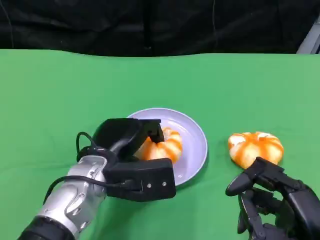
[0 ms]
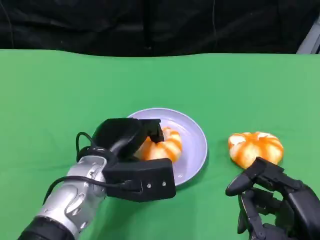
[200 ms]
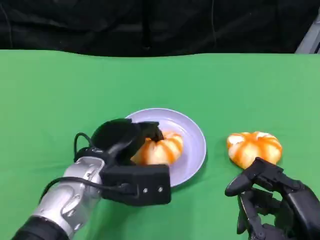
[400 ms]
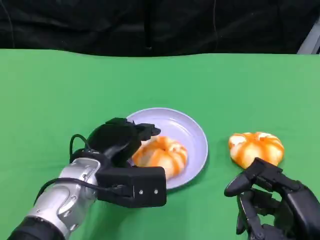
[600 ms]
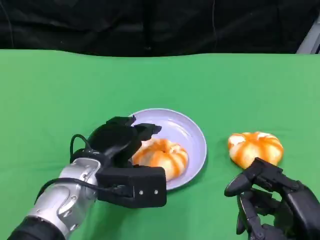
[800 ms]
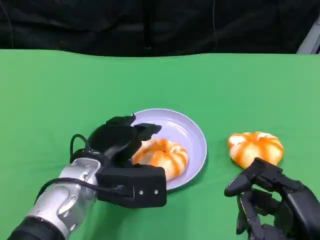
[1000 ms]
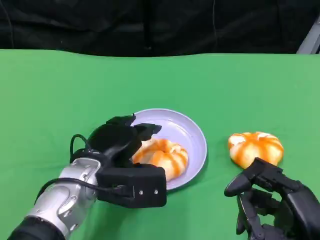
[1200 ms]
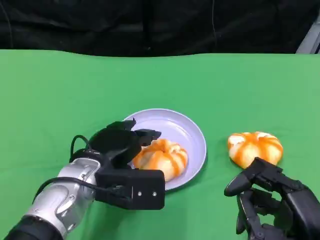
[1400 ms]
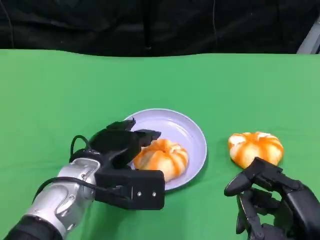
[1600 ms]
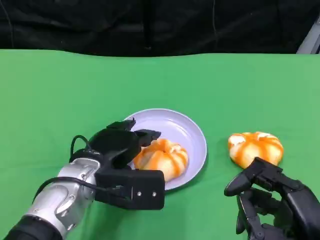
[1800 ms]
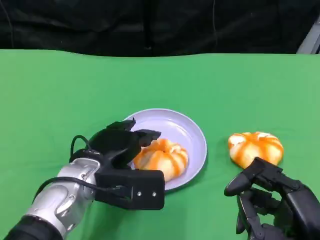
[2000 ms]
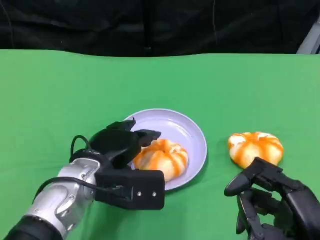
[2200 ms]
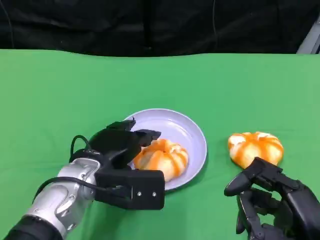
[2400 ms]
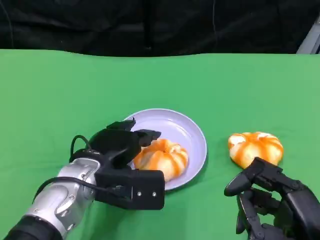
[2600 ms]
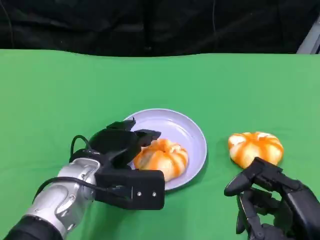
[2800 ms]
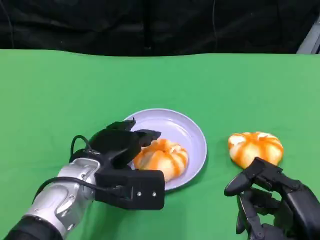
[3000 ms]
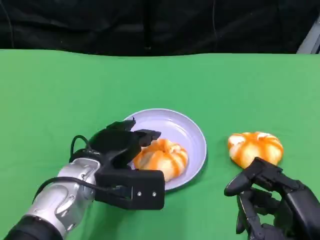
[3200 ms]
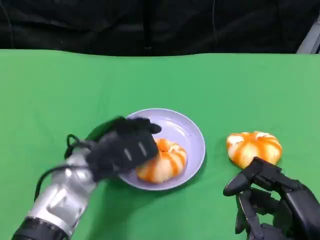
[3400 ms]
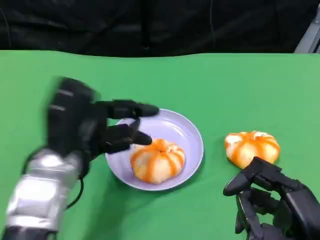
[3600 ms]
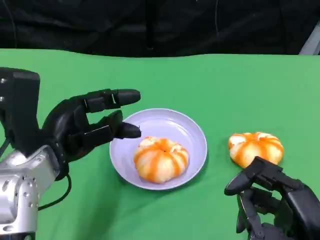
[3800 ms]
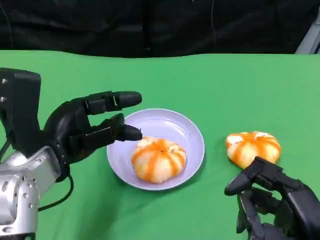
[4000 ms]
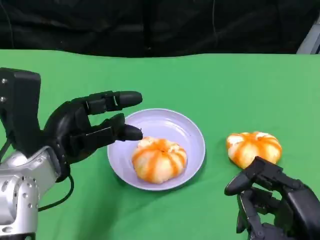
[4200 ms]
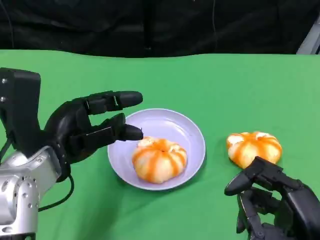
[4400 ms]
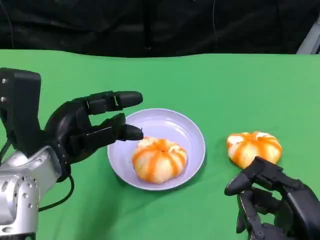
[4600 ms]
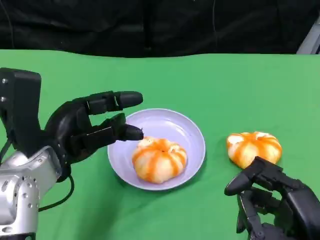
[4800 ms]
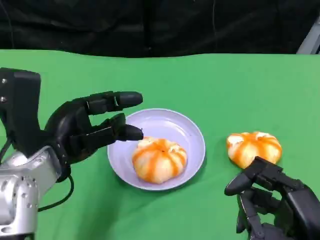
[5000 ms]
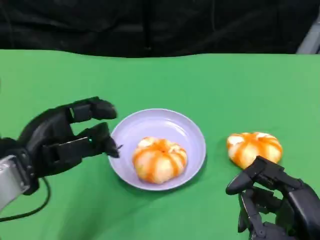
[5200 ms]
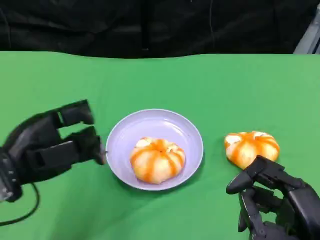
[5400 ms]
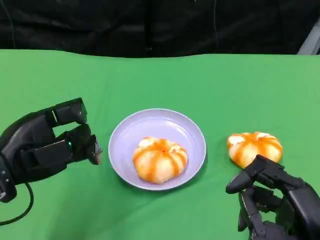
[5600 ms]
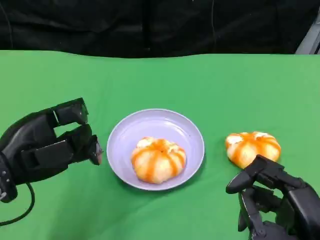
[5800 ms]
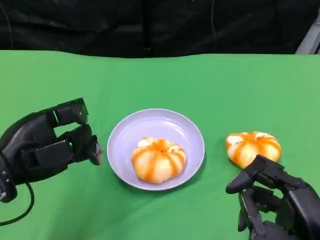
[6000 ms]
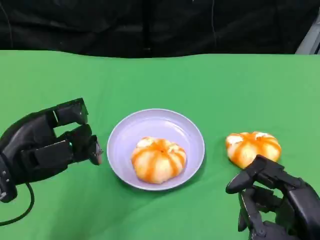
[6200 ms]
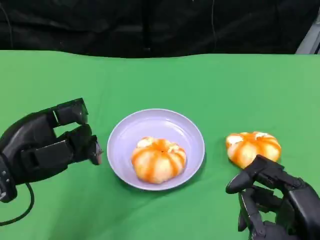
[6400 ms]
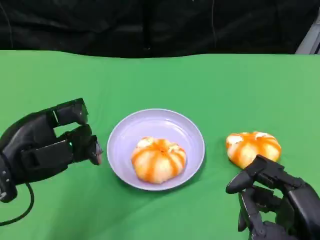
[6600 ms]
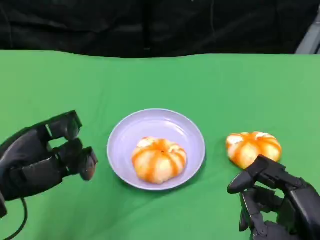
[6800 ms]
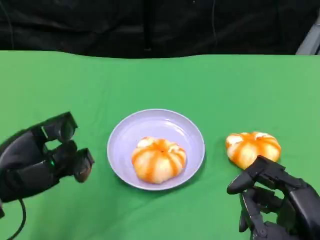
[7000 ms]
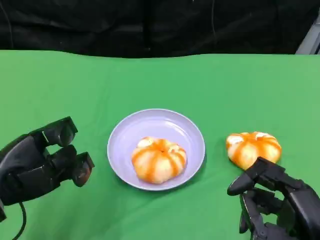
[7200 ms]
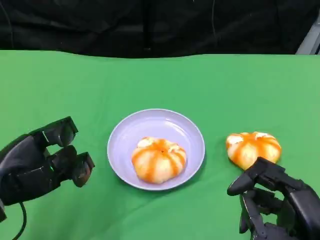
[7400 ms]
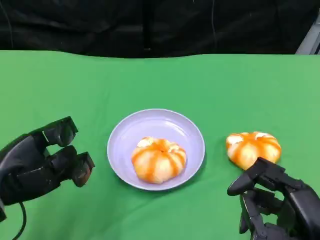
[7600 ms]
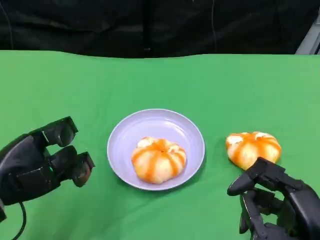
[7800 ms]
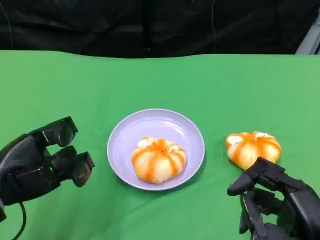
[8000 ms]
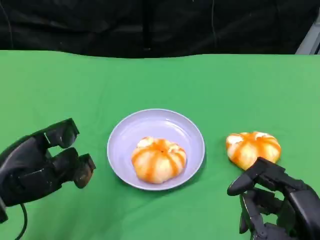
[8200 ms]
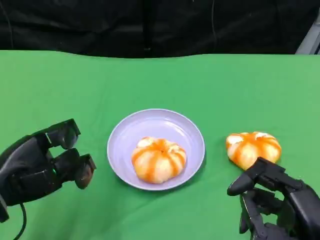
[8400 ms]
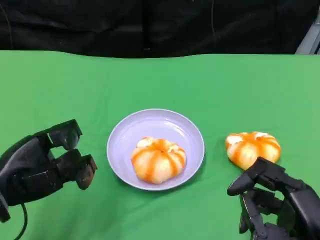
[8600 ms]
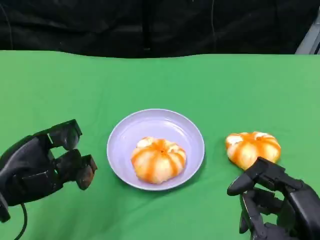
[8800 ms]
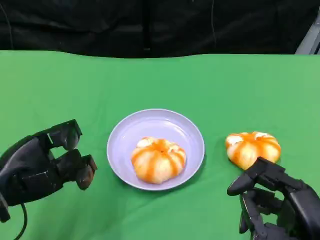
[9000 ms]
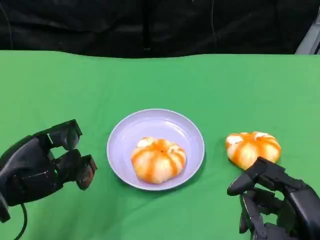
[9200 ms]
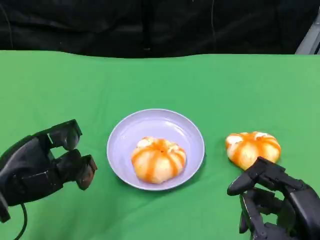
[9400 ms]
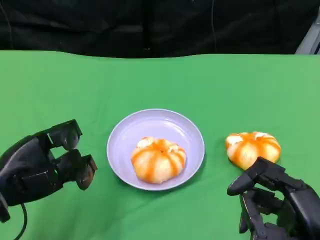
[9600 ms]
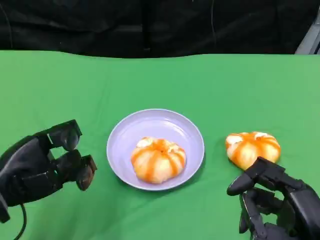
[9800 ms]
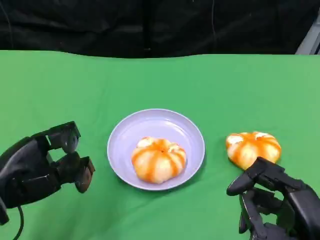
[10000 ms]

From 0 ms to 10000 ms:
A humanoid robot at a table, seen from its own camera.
Task of the whole recording: Grasp the bread from the table and place it into the plate.
From 0 ms to 1400 ms: The hands make only small movements.
From 1400 ms to 2800 ms: Both hands stay put.
From 2800 ms to 4200 ms: The left hand moves upward and to the left, approximately 10 cm.
From 4200 ms to 5800 ms: The left hand heads to the left, covering about 5 cm.
From 5800 ms to 7200 ms: The left hand ends up about 5 cm from where it was.
From 7200 ms to 8600 ms: Both hands stay about where they are.
From 8600 ms to 10000 ms: The two hands keep their place.

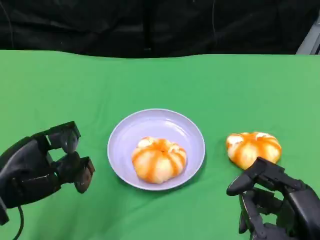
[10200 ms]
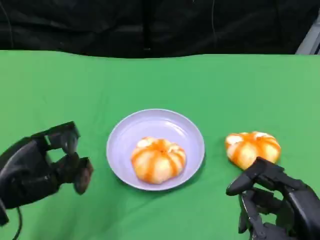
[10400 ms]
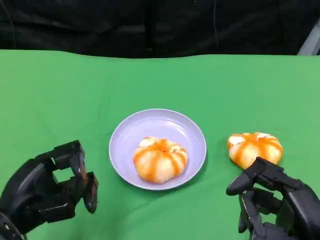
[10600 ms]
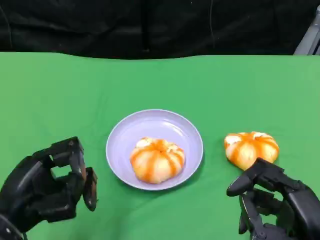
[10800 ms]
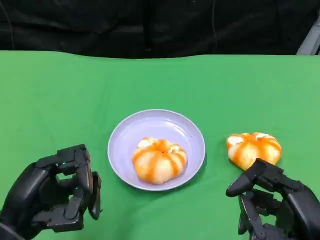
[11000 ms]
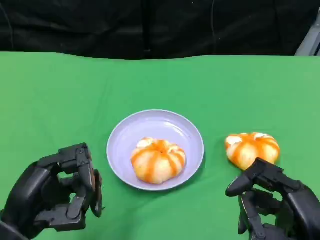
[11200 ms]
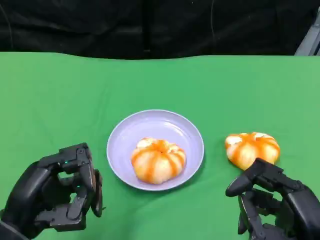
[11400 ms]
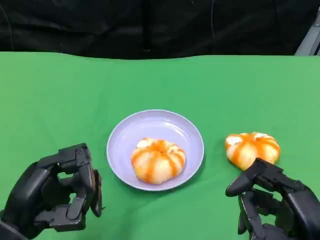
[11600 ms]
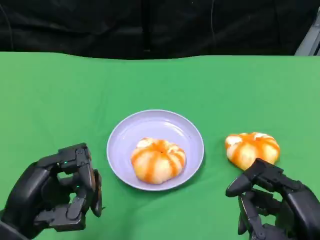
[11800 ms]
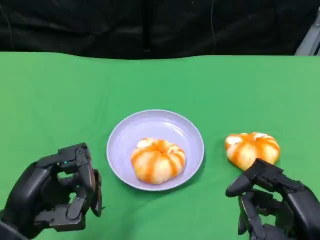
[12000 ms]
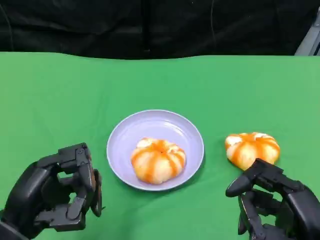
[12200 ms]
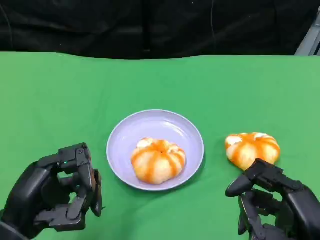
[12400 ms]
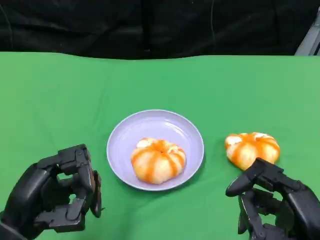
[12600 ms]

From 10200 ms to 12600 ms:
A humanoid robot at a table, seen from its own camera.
Task of the whole recording: Grasp the bread from the table and place it into the plate.
From 10200 ms to 11400 ms: The left hand moves backward, some 5 cm.
From 11400 ms to 12600 ms: Neither hand changes place.

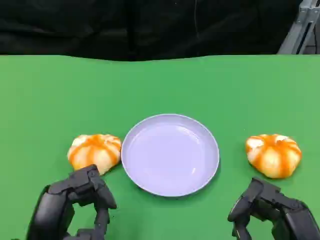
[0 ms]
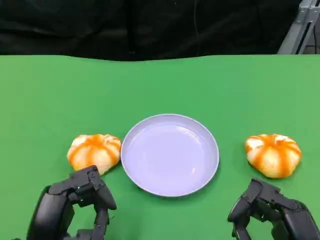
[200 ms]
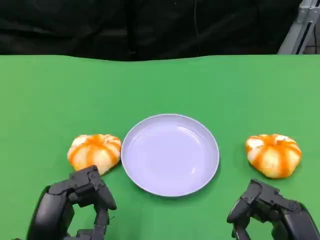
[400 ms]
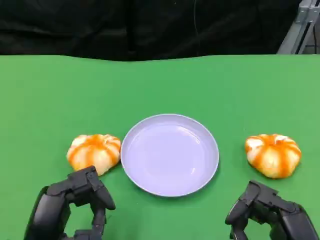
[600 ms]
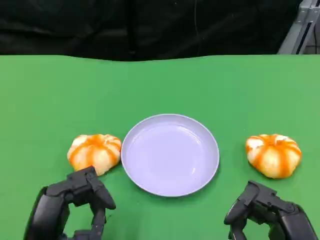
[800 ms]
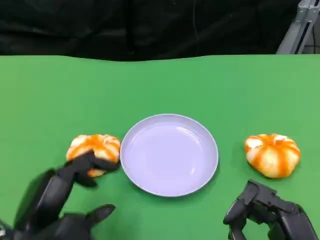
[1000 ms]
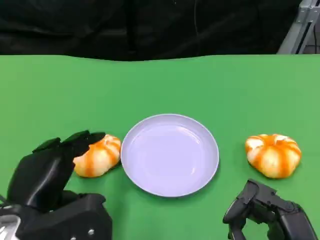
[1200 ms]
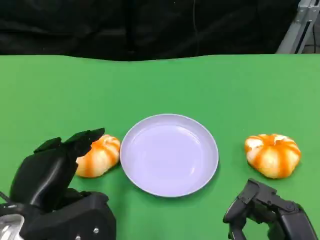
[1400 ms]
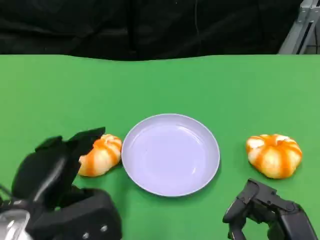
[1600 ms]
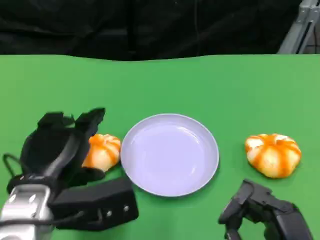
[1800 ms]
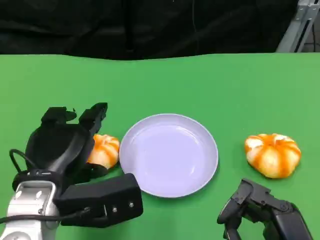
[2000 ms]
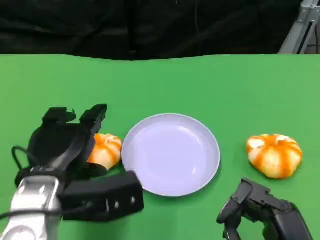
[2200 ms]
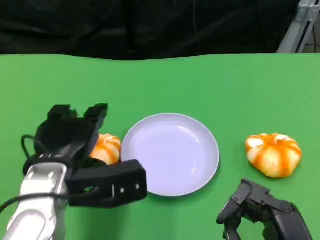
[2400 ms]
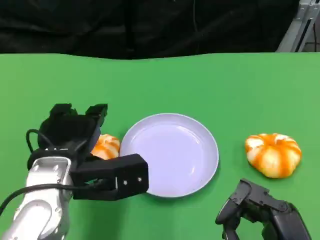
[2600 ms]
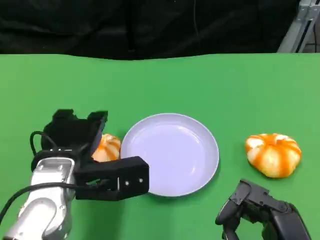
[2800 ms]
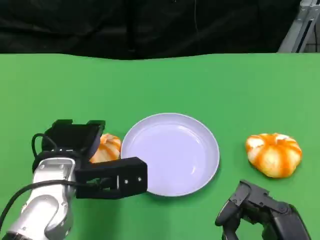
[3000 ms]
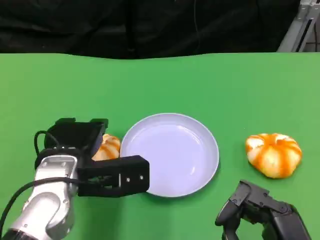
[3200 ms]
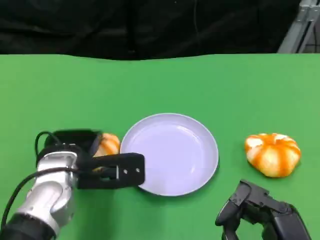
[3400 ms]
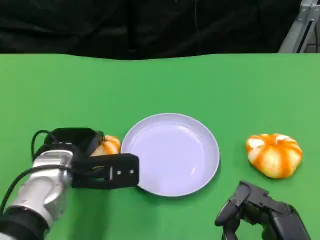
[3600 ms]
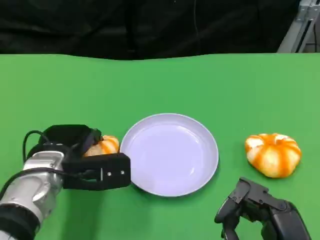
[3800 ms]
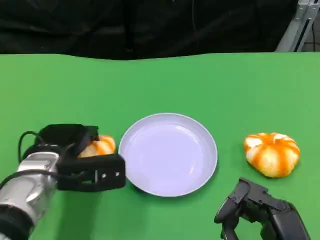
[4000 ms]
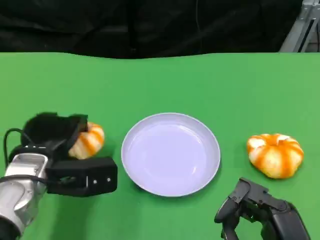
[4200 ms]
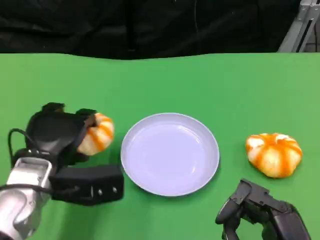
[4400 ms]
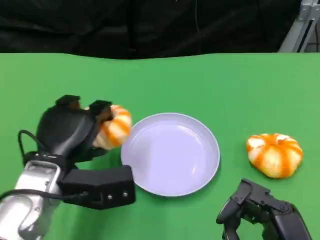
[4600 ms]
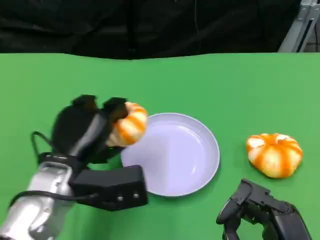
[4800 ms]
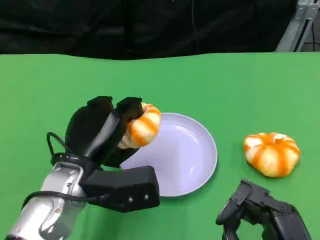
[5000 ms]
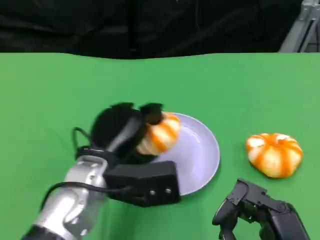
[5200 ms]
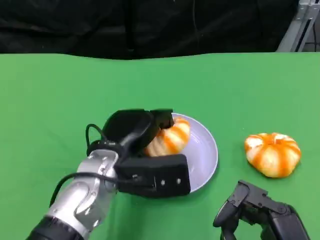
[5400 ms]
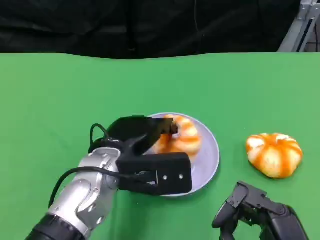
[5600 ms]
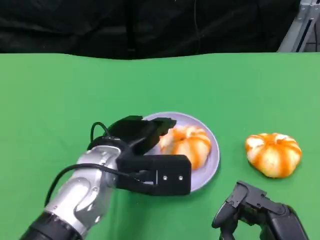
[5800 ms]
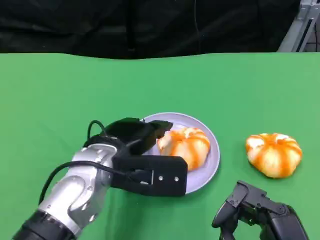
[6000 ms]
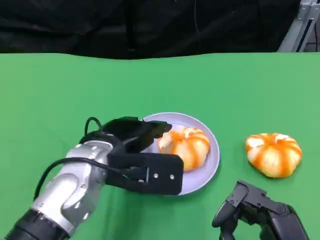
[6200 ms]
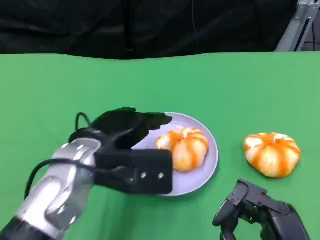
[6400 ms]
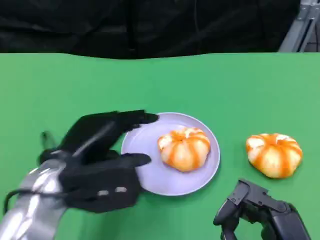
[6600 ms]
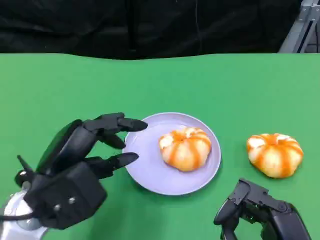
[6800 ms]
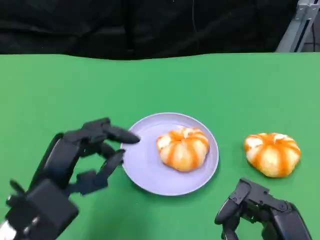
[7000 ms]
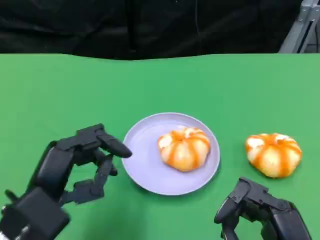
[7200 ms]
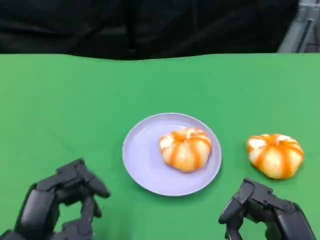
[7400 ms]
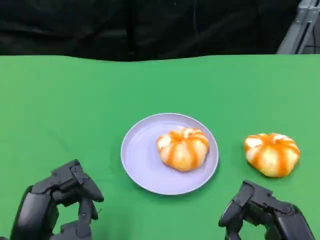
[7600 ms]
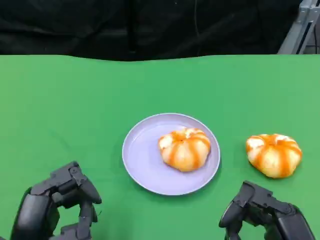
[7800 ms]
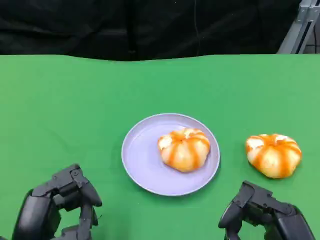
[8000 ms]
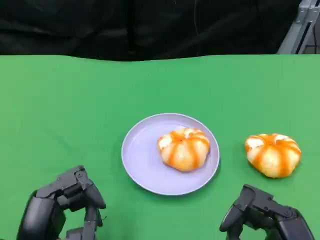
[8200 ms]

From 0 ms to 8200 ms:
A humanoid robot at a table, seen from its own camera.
Task of the whole recording: Grasp the bread from the table and place it into the plate.
From 0 ms to 1600 ms: The left hand moves upward, approximately 5 cm.
From 1600 ms to 3200 ms: The left hand shifts some 5 cm forward.
From 5000 ms to 6600 ms: The left hand shifts by roughly 5 cm.
From 6600 ms to 8200 ms: The left hand shifts about 10 cm backward and downward.

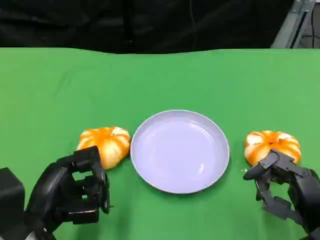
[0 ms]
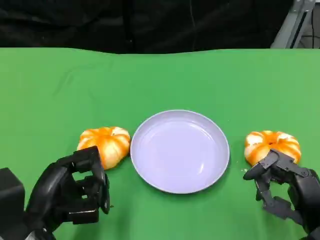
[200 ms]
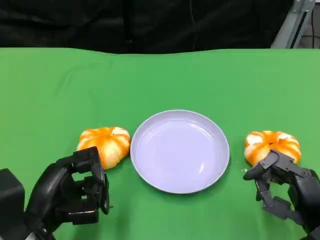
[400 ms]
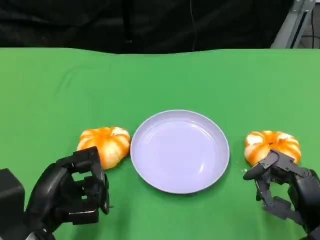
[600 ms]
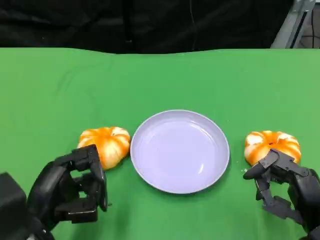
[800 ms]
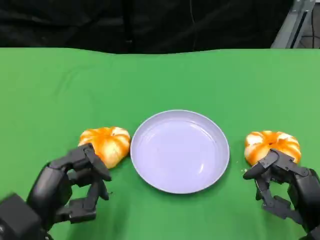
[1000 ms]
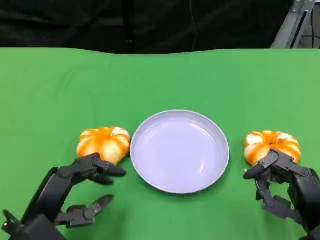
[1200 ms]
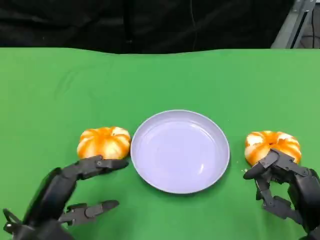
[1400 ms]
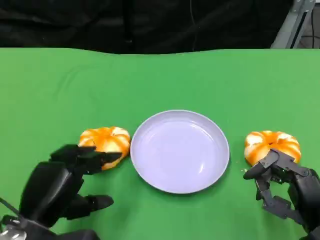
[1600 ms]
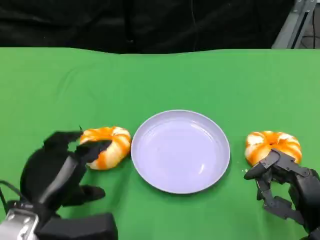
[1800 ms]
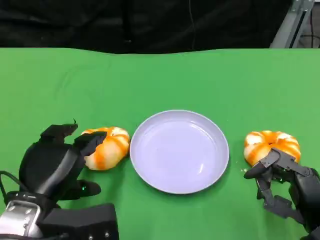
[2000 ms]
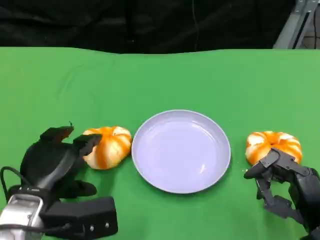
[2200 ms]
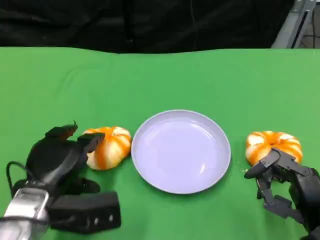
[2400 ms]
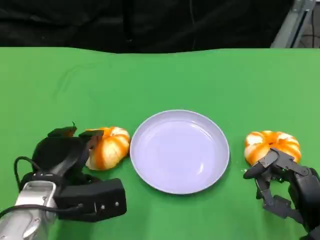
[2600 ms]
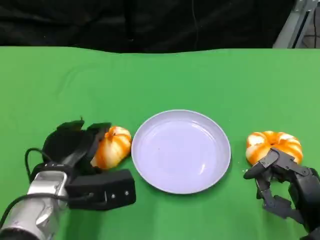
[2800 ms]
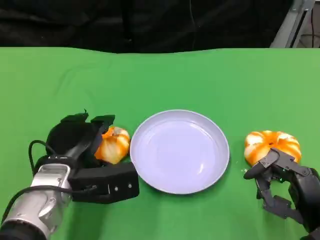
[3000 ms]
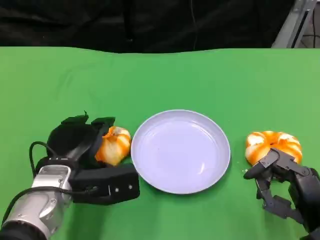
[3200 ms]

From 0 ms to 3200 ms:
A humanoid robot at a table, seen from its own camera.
Task of the whole recording: Grasp the bread from the table and place it into the plate.
From 1600 ms to 3200 ms: The left hand moves forward, roughly 10 cm.
